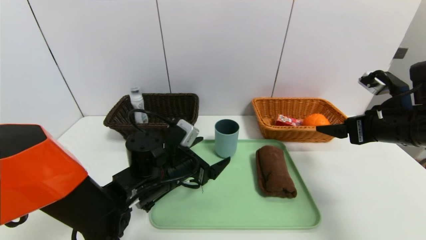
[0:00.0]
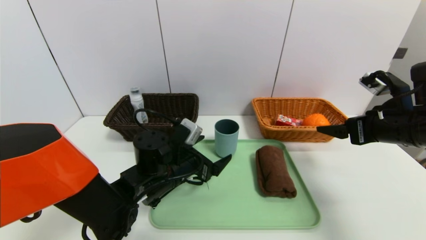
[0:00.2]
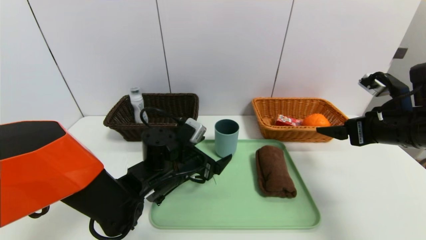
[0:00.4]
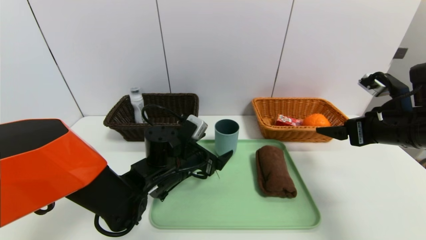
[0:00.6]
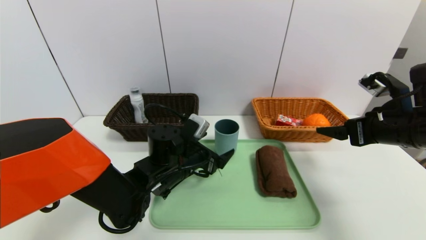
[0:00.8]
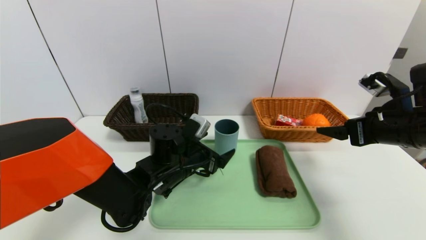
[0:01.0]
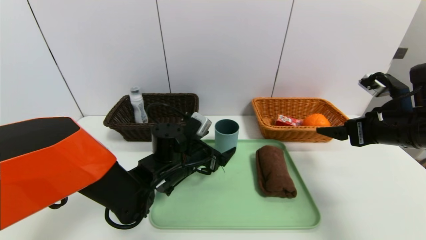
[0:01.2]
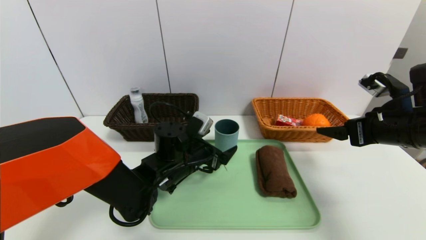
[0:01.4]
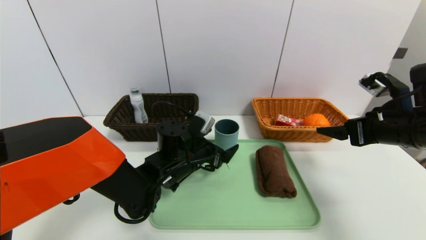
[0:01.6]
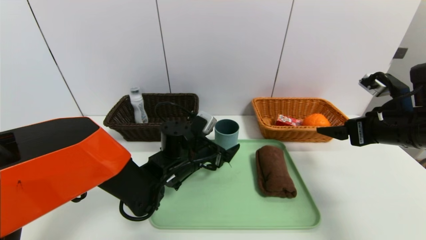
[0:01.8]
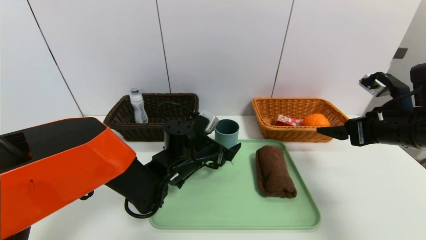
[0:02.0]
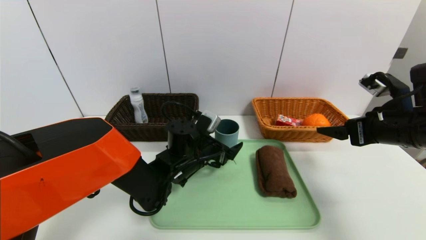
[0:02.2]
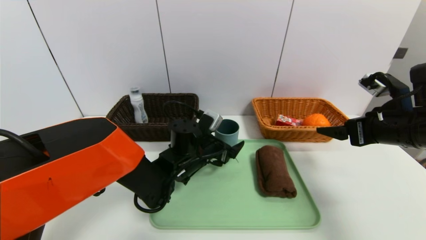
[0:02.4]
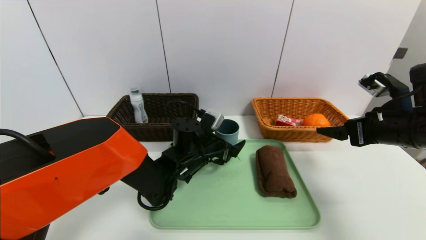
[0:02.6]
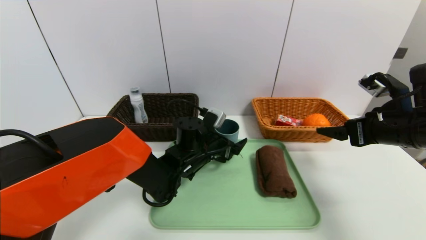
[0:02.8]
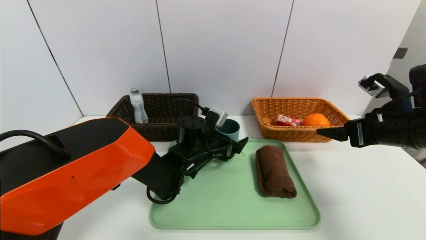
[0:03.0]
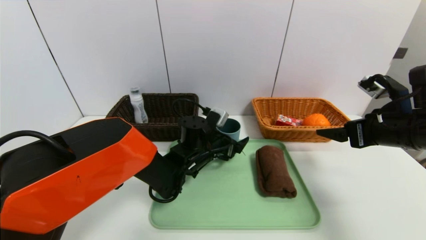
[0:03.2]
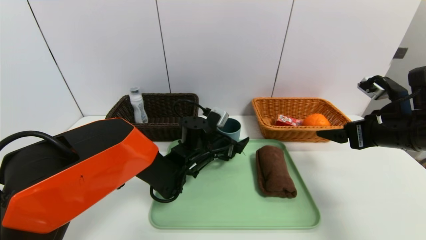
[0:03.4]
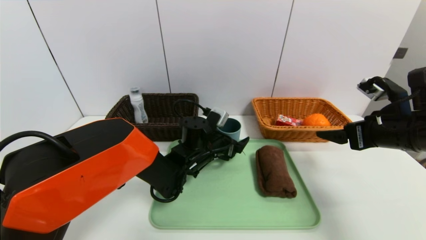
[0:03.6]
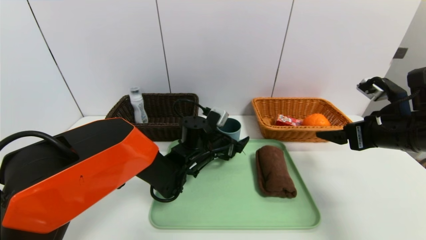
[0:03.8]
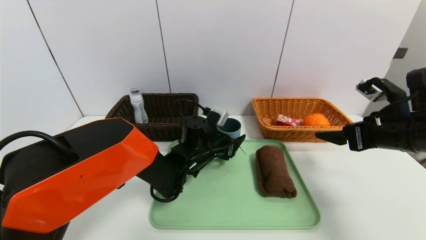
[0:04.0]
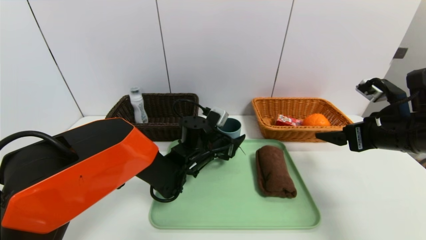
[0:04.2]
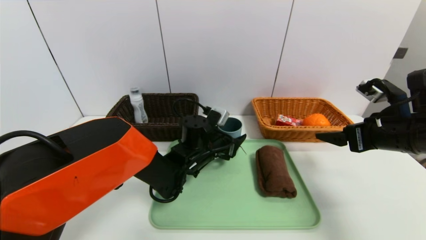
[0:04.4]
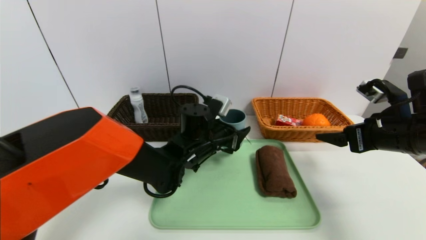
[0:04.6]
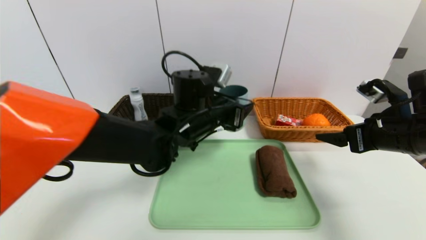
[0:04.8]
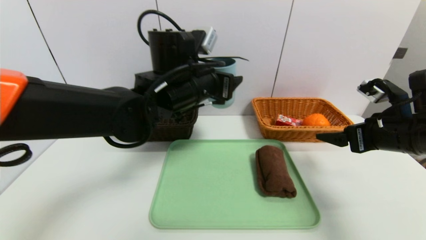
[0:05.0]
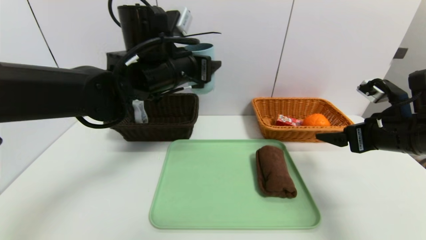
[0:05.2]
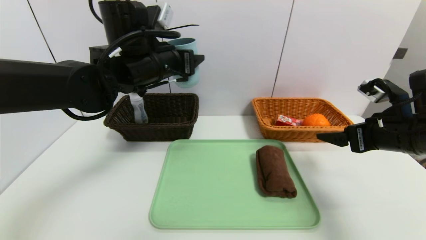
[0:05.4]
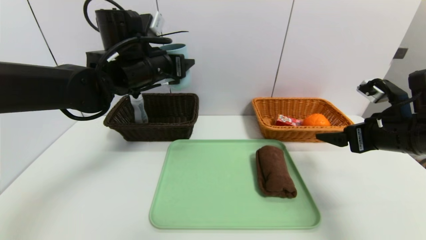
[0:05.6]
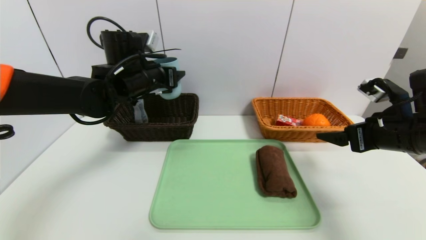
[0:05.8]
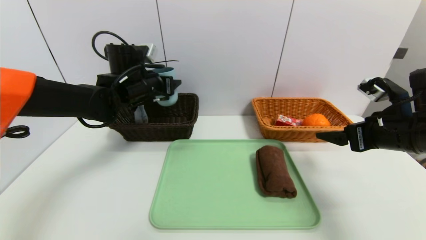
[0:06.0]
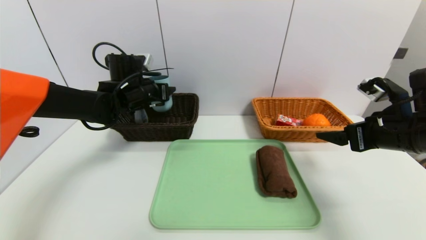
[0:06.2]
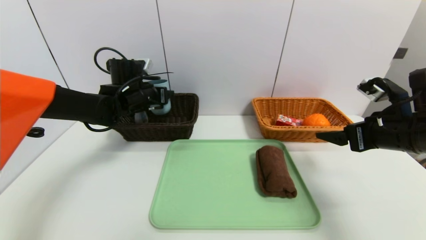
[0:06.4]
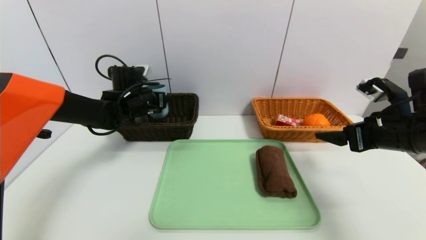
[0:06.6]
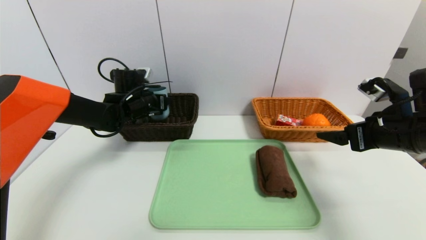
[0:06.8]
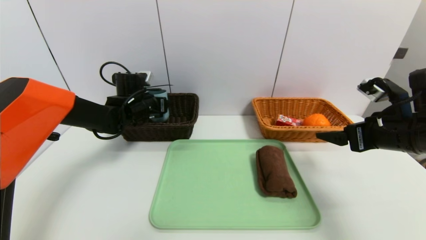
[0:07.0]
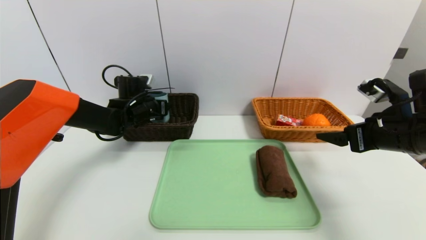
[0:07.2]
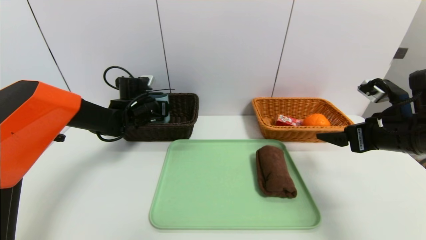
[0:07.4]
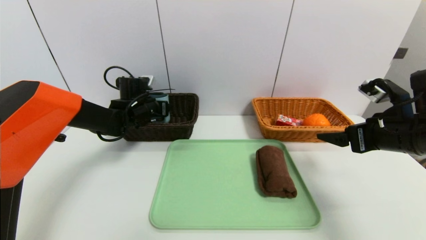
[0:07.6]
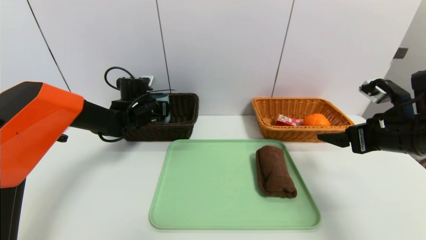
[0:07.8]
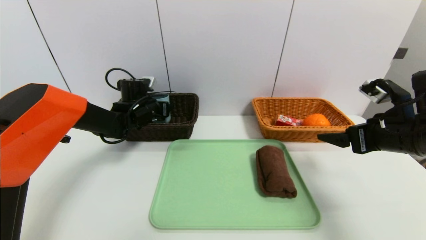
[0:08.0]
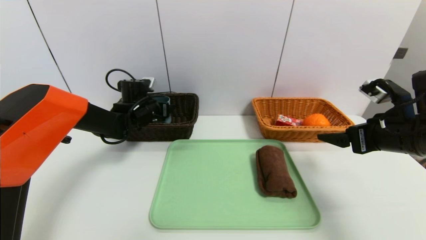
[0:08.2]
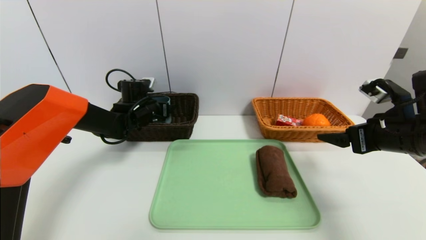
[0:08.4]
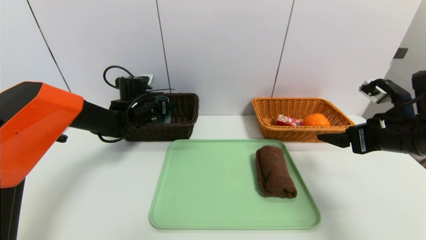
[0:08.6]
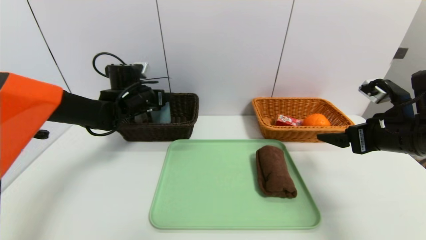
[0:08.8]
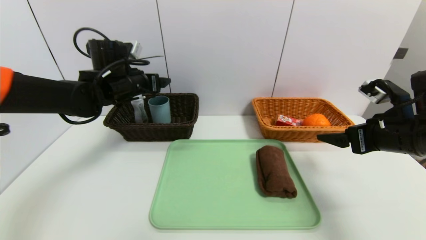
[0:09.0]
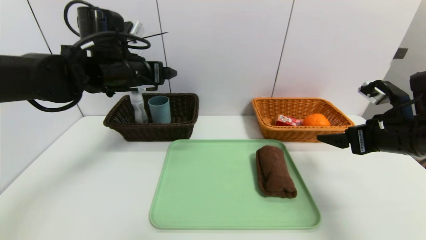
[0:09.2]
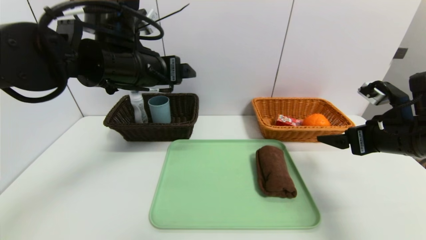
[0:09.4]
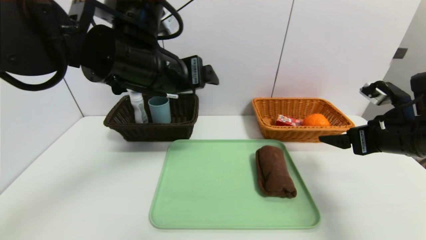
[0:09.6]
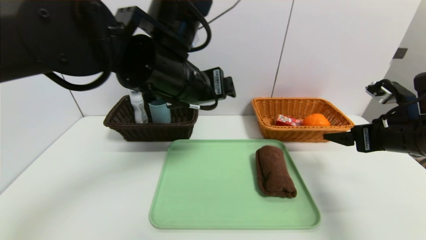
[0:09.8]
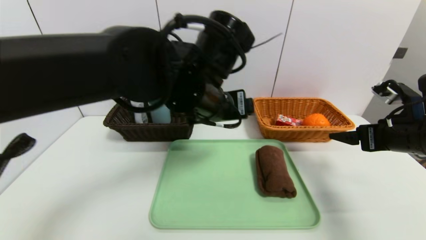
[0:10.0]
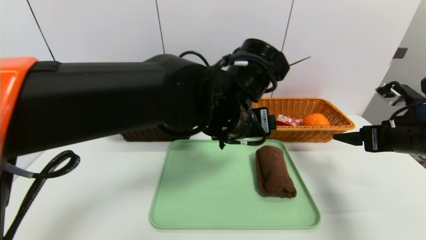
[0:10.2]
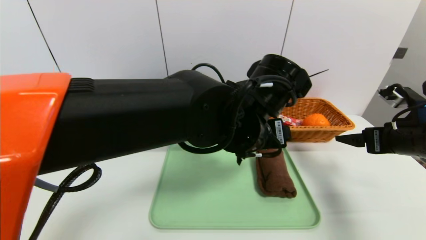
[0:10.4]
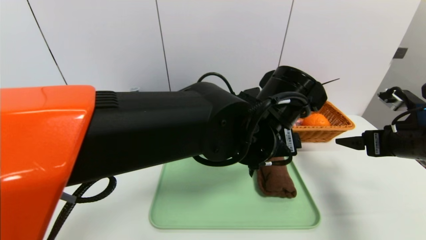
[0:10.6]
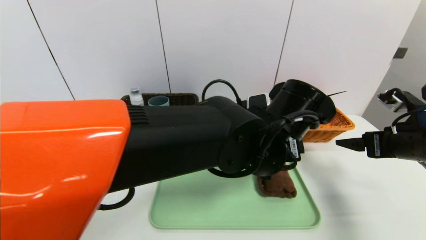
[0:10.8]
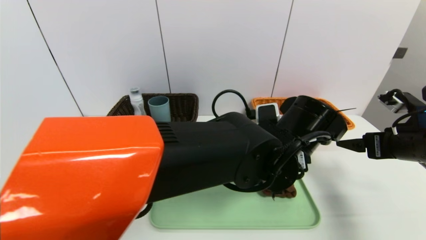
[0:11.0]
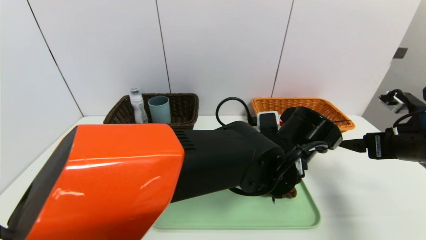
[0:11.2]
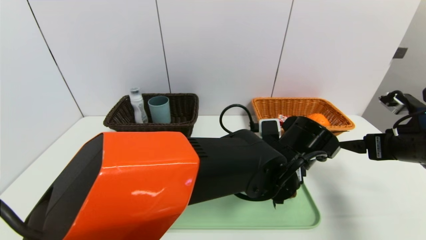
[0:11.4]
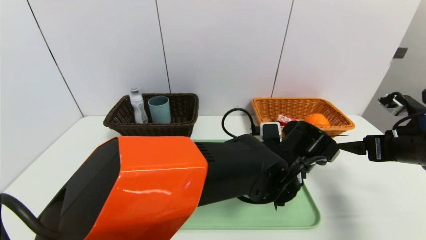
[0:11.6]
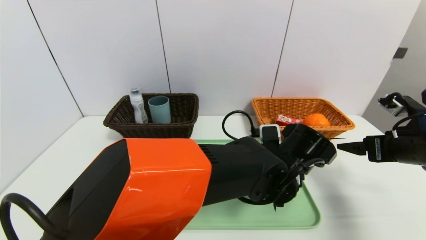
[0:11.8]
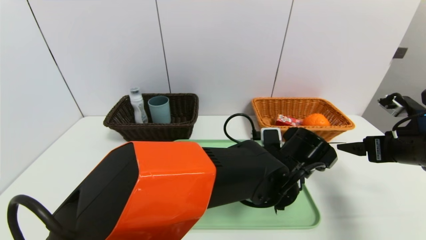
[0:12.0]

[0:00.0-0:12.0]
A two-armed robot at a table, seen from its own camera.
Task of the whole recording: place the food in the right basket with the right gripper, and place the non food items in the left basket with the left gripper.
Step, 0:00.0 to 0:08.8: Grasp the blue cup and put it in the left basket.
0:00.0 to 0:01.6: The left gripper moves roughly 5 cm.
0:01.6 to 0:03.0: The left gripper moves some 5 cm.
0:03.0 to 0:04.4: The left gripper closes.
0:04.4 to 0:06.0: The left gripper is displaced to the left and upward by some 20 cm.
0:06.0 to 0:07.6: The left gripper is displaced downward by roughly 10 cm.
0:07.6 to 0:09.0: The left gripper shifts approximately 10 cm upward and backward, and opens.
0:09.0 to 0:10.4: The left gripper travels to the right and backward by some 30 cm.
0:10.4 to 0:12.0: The left gripper moves downward and to the right, roughly 10 cm.

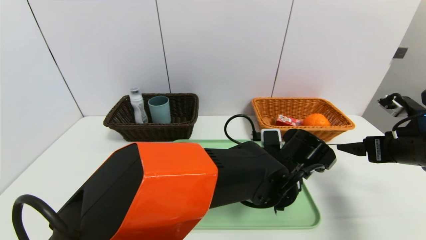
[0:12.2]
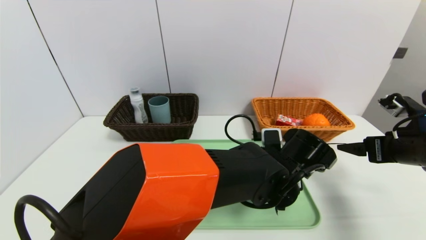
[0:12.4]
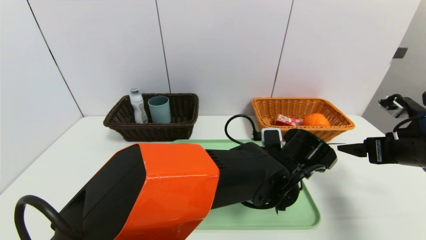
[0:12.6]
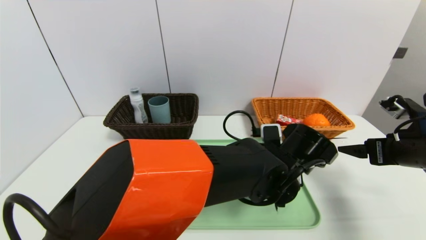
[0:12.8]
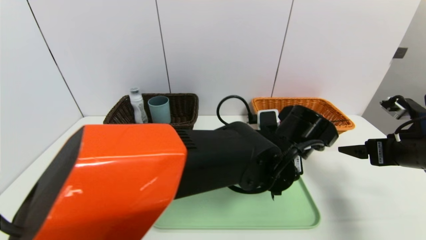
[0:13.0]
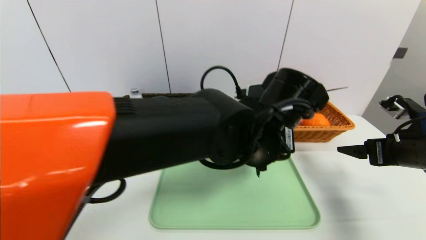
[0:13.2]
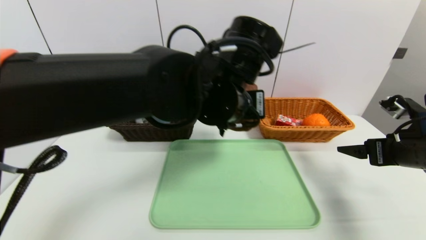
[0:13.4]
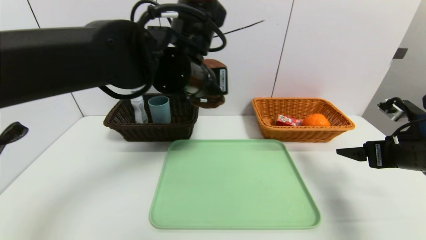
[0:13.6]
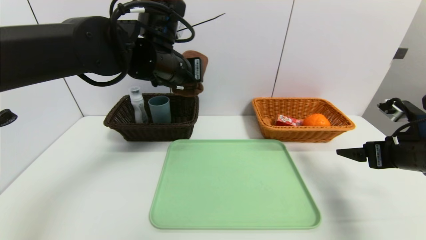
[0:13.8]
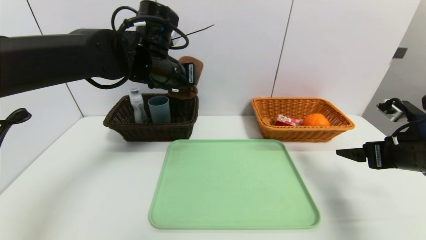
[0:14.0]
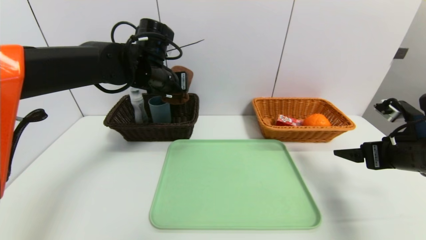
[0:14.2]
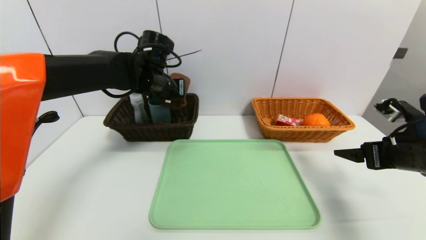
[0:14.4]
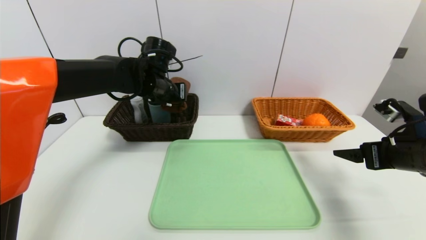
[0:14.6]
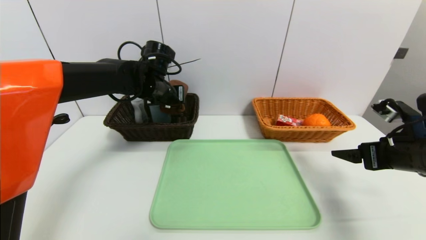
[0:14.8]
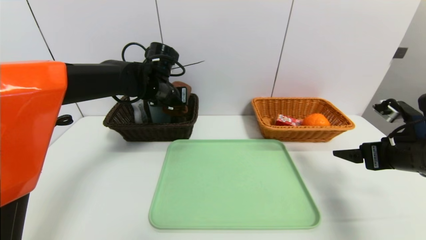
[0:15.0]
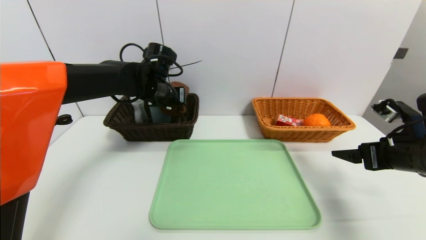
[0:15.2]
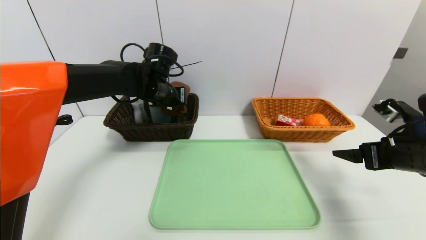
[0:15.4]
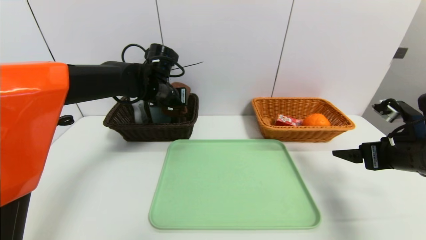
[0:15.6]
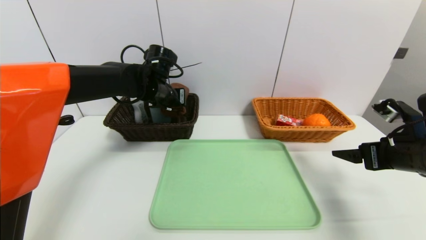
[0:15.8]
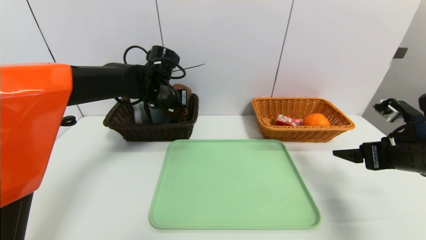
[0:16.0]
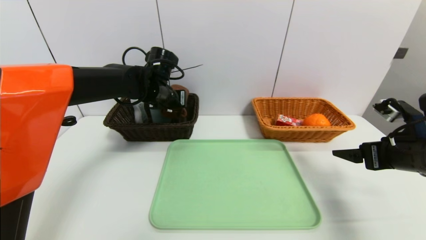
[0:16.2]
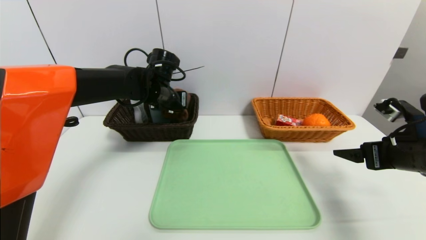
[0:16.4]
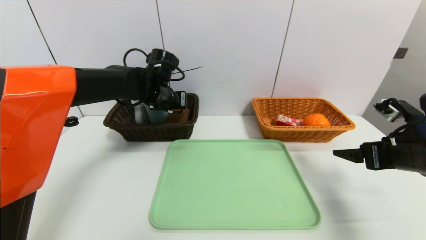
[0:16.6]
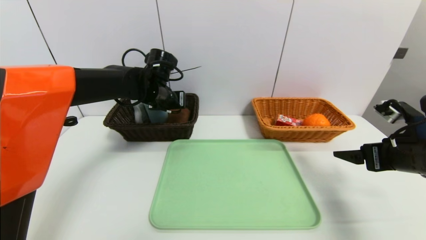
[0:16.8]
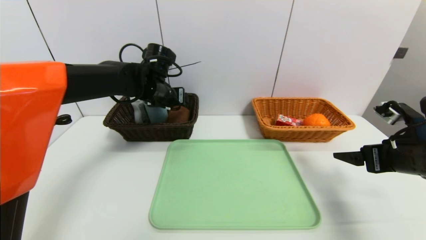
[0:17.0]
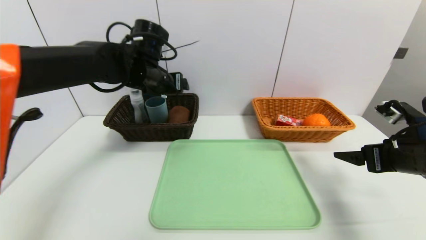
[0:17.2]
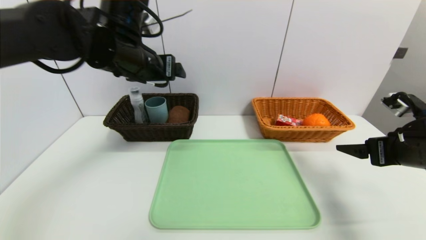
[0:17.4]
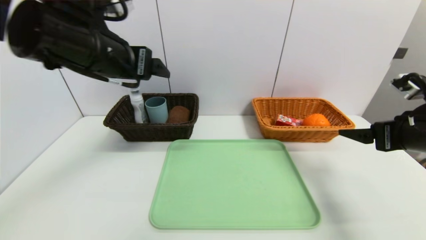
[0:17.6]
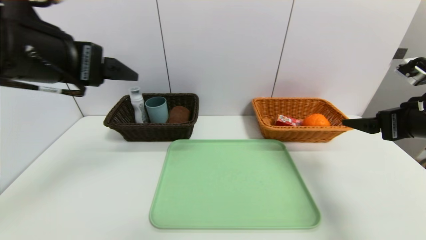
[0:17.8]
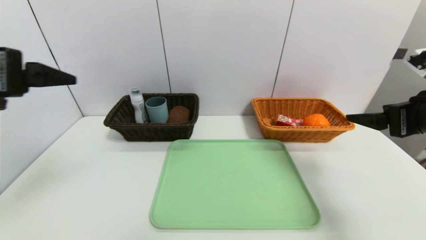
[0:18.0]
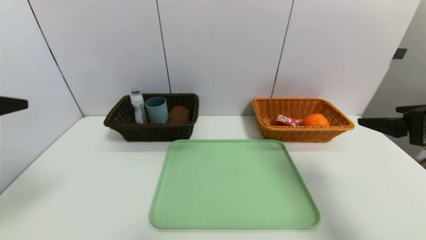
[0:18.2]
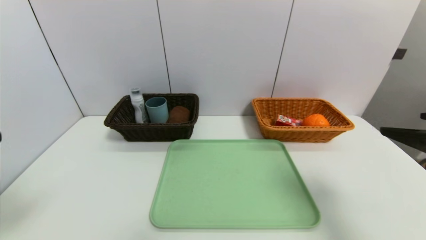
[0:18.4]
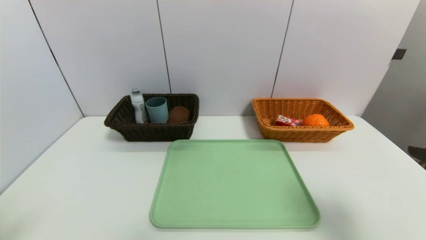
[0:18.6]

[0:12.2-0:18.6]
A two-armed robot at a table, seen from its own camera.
Task of the whole recording: place the food in the right basket with the right gripper, and place the non food items in the left basket with the left gripper.
Step, 0:12.2 to 0:17.0: Grasp the brown towel and put it in the left basket.
0:12.2 to 0:13.8: The left gripper goes approximately 30 cm to the left, upward and forward, and closes its fingers.
0:13.8 to 0:15.4: The left gripper moves downward and forward, approximately 10 cm.
0:15.4 to 0:17.0: The left gripper opens up.
0:17.0 to 0:18.6: The right gripper heads backward and upward, covering about 15 cm; the left gripper moves backward and to the left, some 40 cm.
